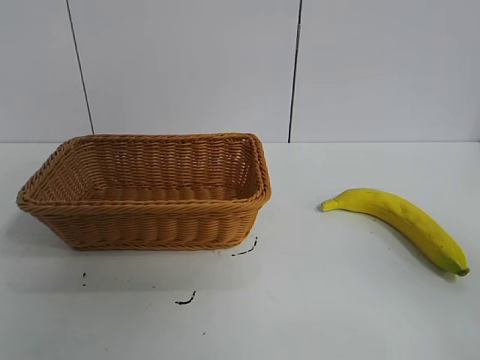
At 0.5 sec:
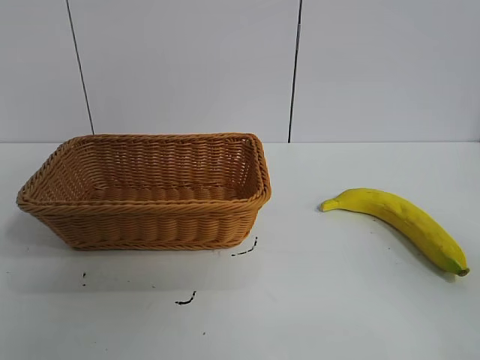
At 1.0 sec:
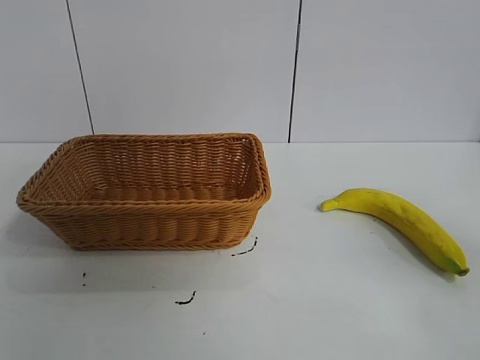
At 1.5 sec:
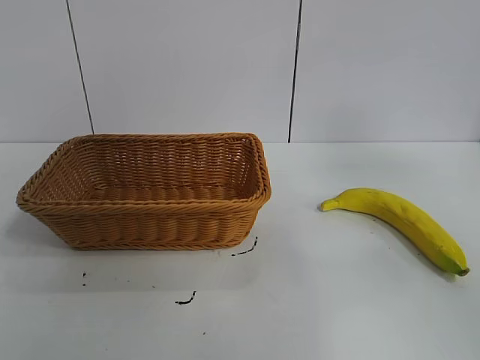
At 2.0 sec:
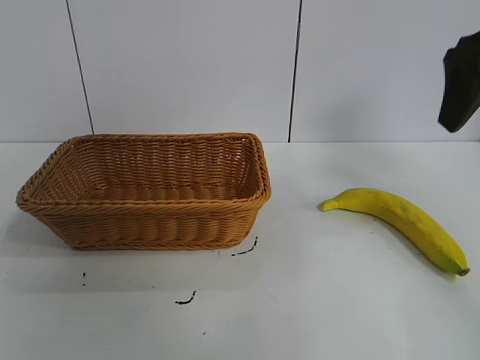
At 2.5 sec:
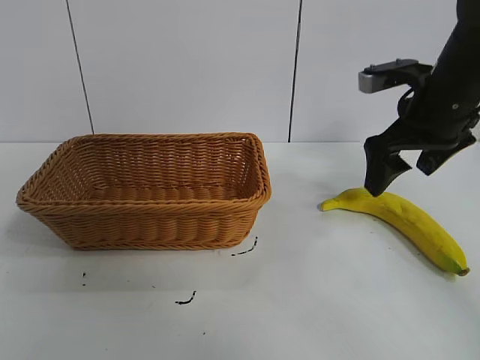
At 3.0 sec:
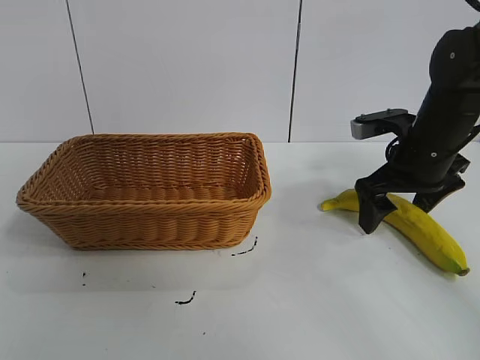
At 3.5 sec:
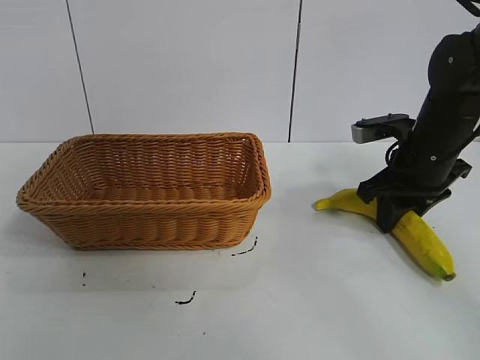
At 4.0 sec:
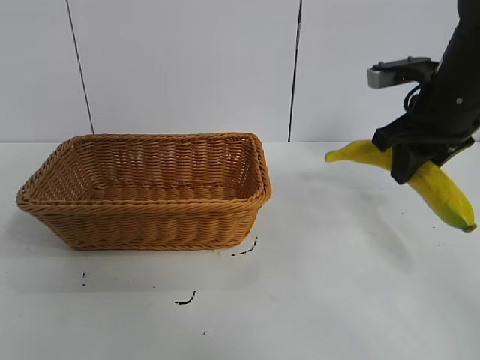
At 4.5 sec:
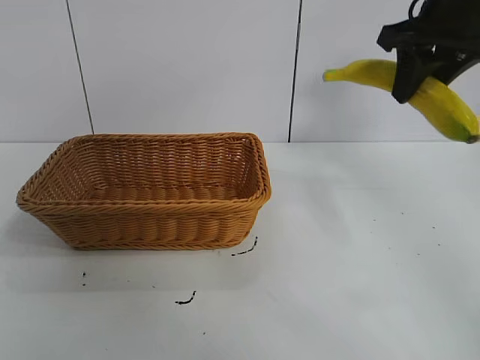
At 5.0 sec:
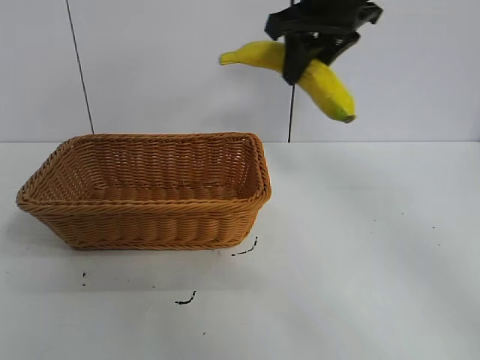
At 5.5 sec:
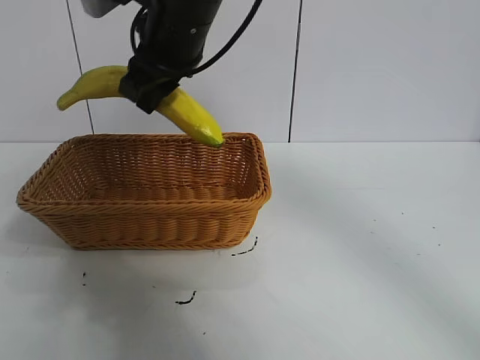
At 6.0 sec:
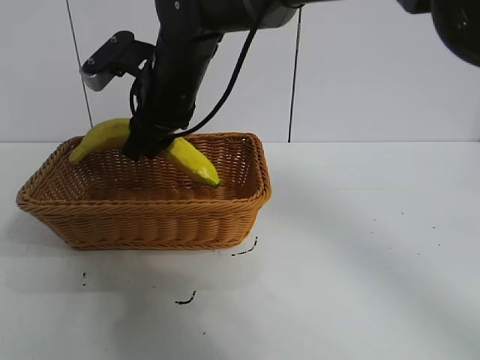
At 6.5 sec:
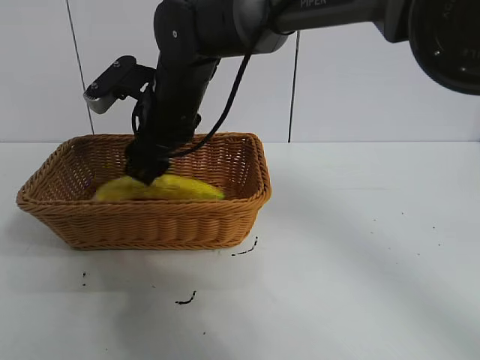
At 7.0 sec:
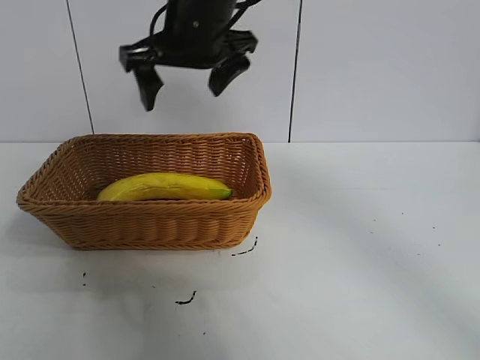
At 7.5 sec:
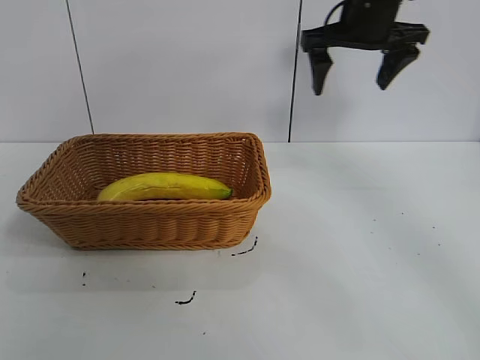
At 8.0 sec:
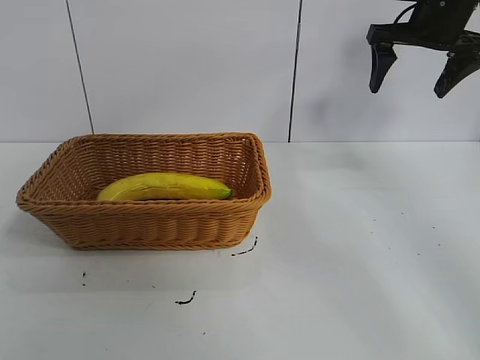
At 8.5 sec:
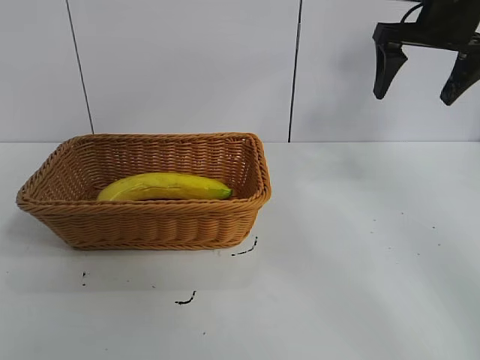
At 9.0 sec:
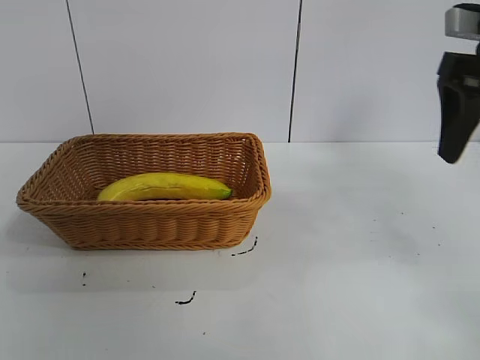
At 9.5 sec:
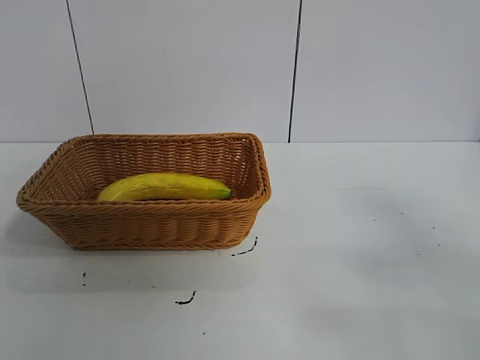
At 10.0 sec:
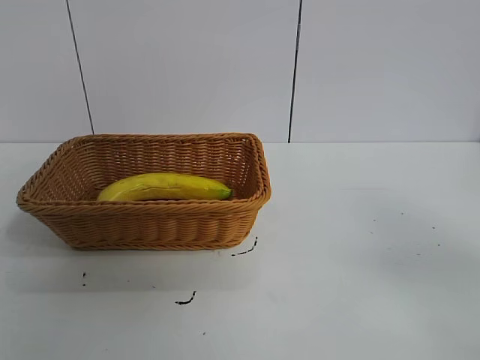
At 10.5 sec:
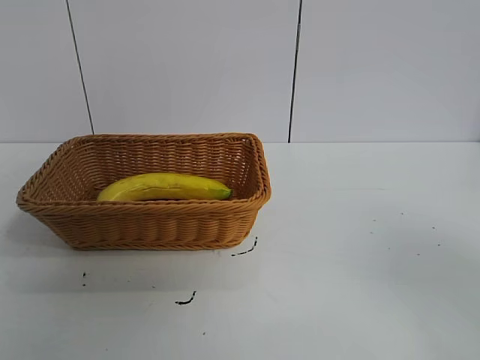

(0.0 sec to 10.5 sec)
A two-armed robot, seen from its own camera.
Task of the whole recording: pick up the banana and put it into the basket.
Step, 1.0 sec - 3.5 sec: Grasp the banana with right gripper.
Step, 4.0 sec - 6.5 sec: Place the banana in the basket with right gripper.

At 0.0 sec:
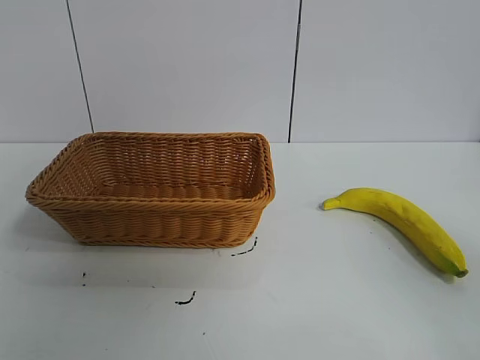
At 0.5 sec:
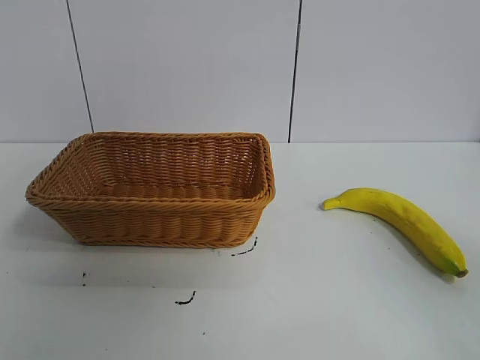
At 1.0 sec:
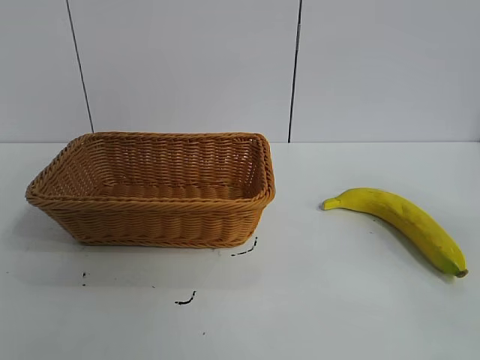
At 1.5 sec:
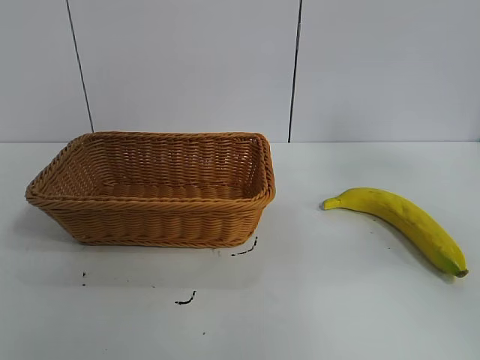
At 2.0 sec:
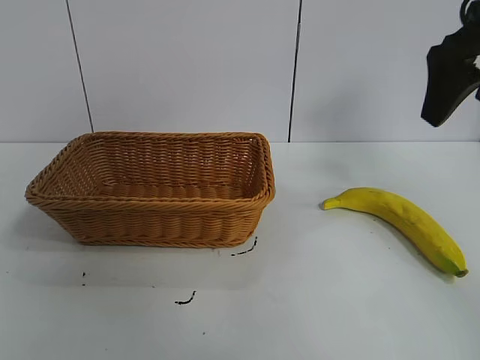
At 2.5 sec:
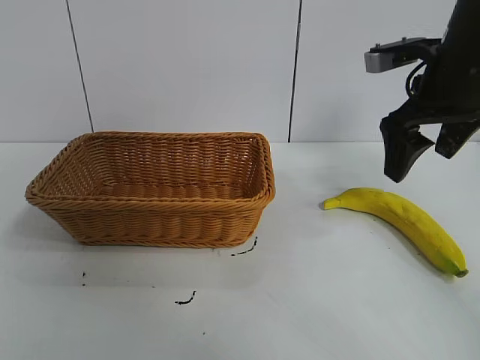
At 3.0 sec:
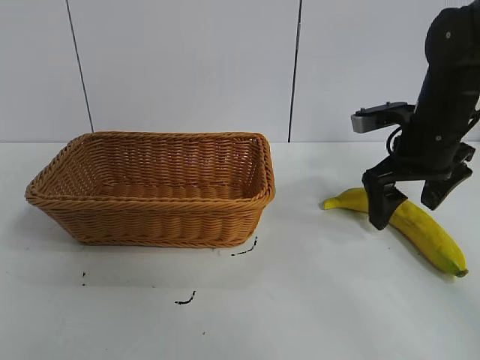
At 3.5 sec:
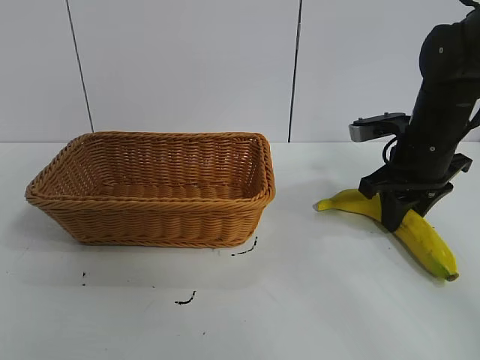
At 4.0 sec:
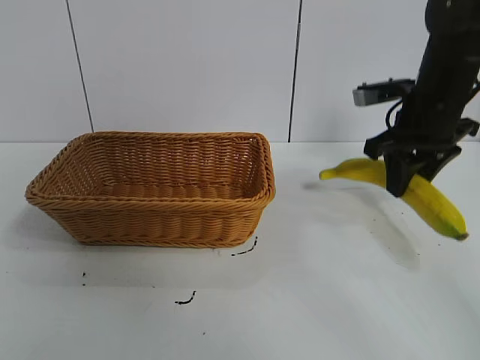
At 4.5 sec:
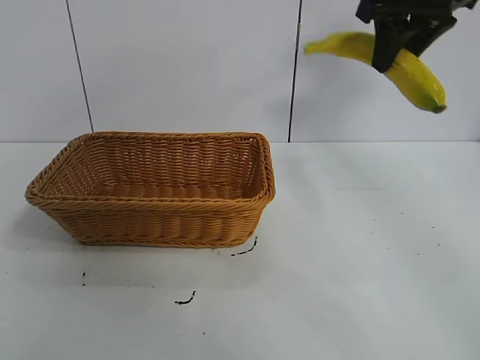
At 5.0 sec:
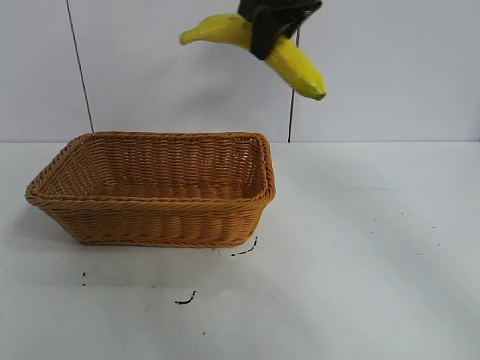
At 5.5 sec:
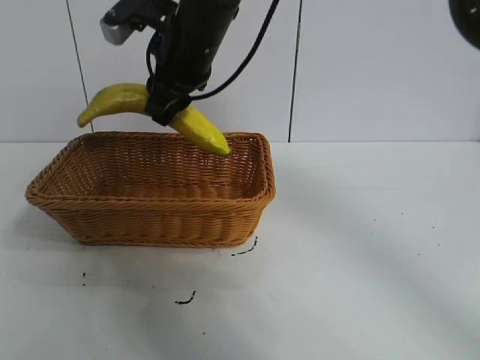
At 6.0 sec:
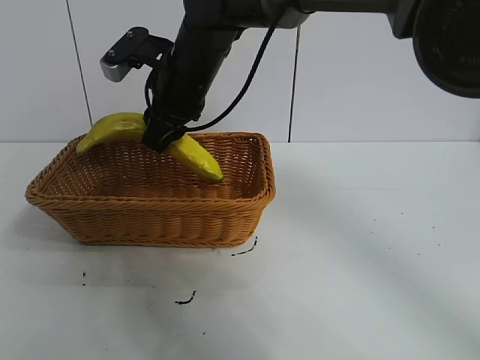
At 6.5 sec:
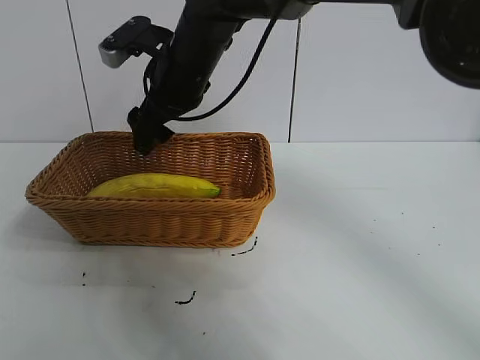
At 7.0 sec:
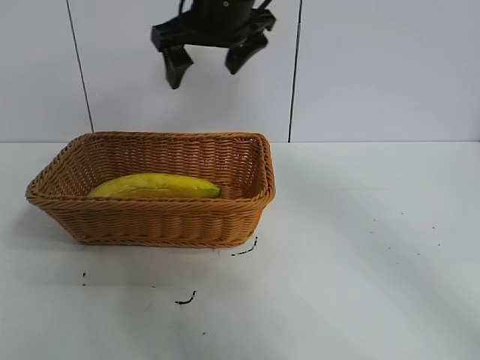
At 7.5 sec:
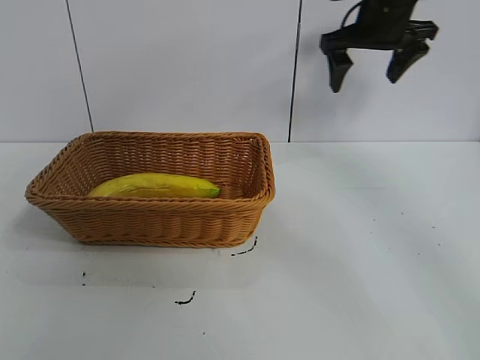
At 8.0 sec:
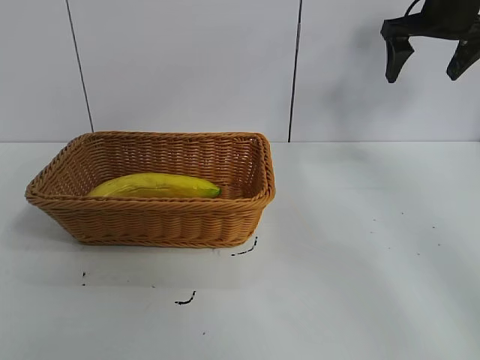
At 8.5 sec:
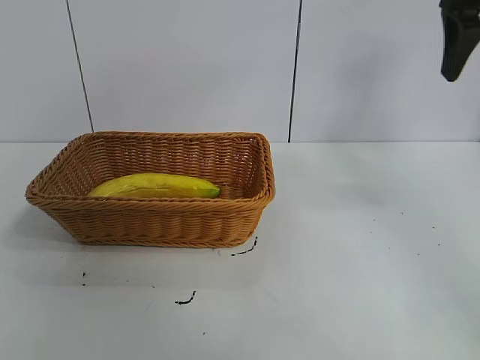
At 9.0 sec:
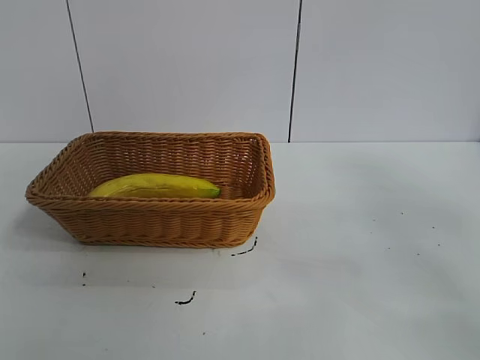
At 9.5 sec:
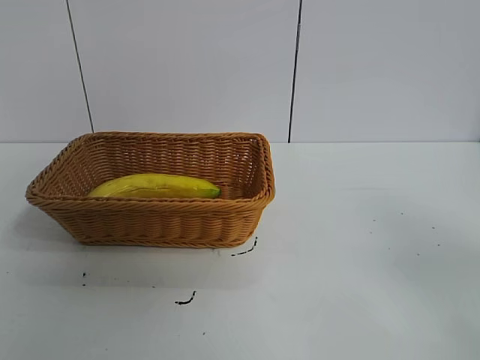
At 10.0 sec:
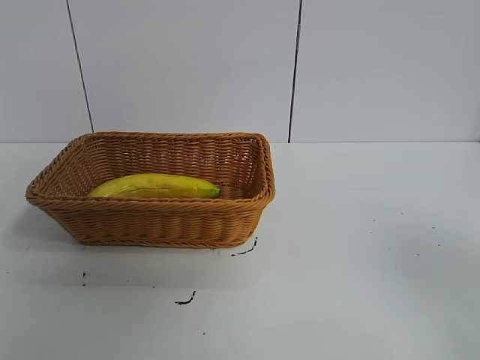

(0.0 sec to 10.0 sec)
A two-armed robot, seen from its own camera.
Task of the whole recording: pick up the banana and put it into the basket.
Step, 1.0 sec - 3.5 sec: Grasp the banana with right gripper.
Step, 4.0 sec - 6.0 sec: Place the banana in the basket with right gripper.
